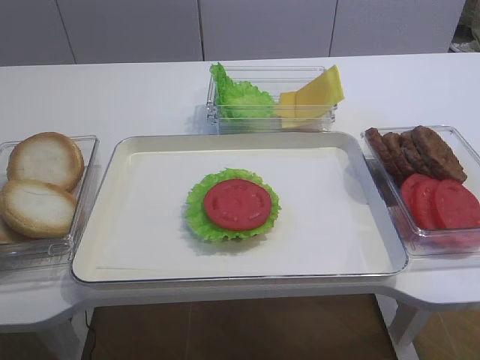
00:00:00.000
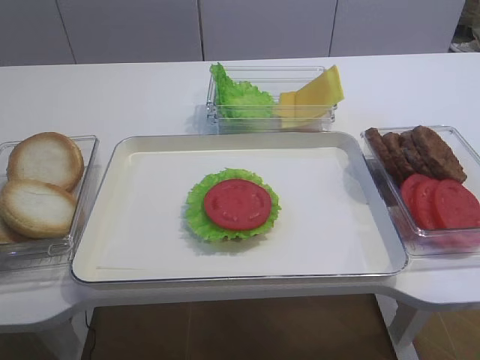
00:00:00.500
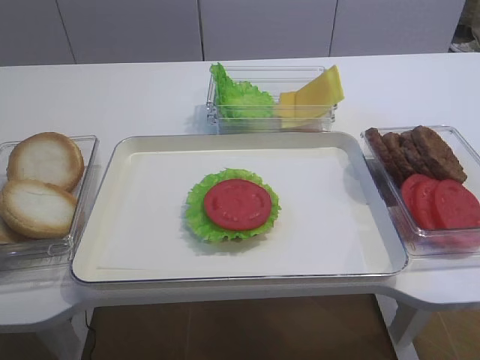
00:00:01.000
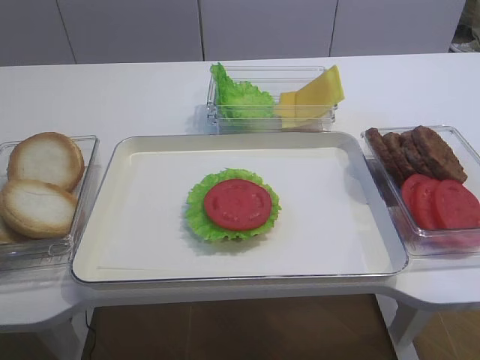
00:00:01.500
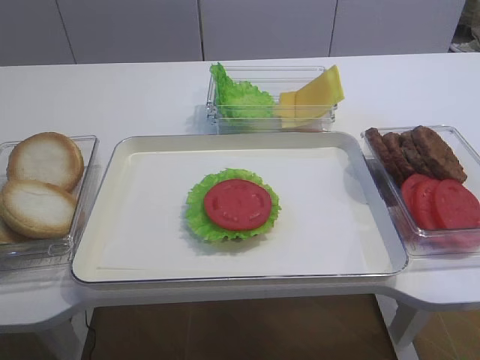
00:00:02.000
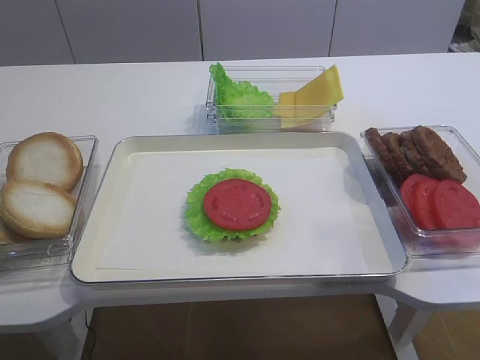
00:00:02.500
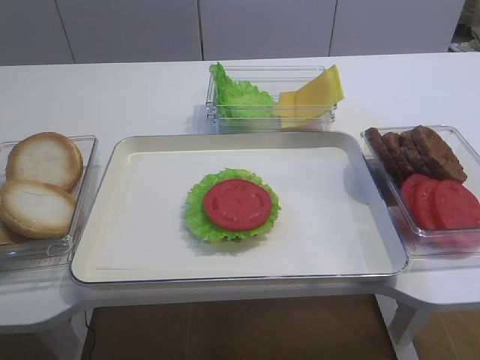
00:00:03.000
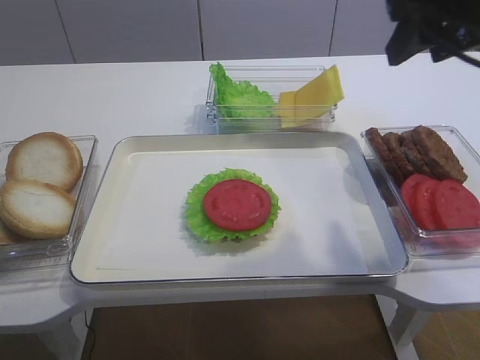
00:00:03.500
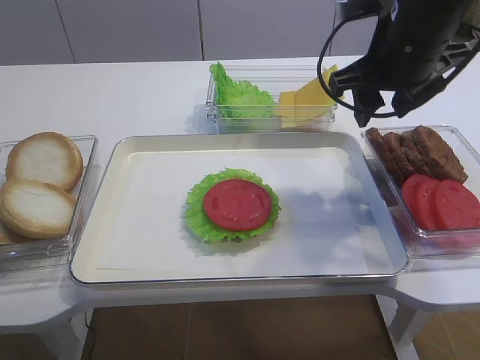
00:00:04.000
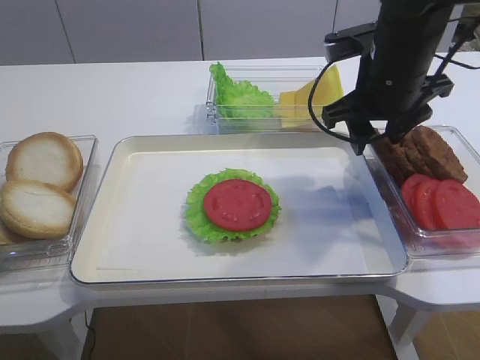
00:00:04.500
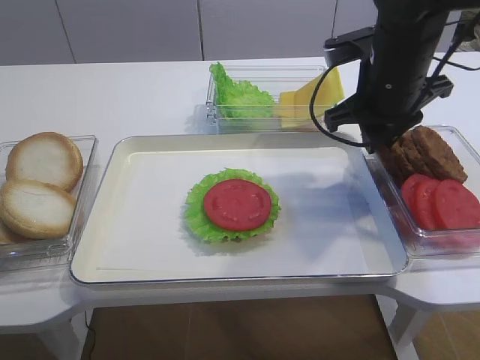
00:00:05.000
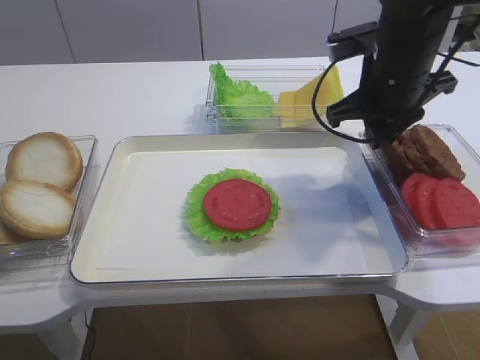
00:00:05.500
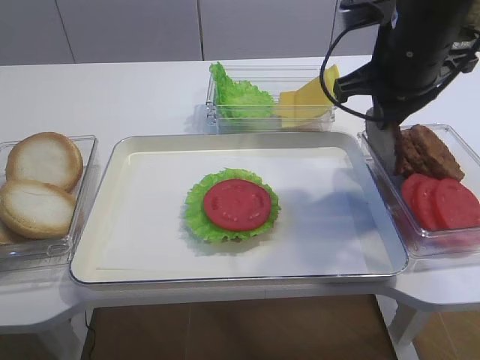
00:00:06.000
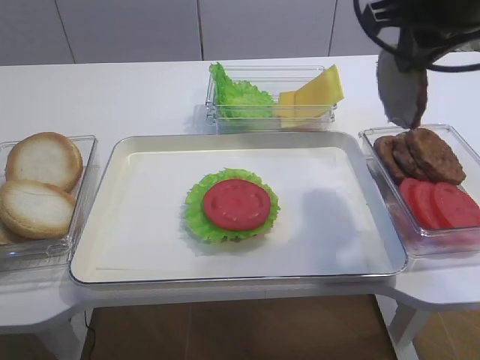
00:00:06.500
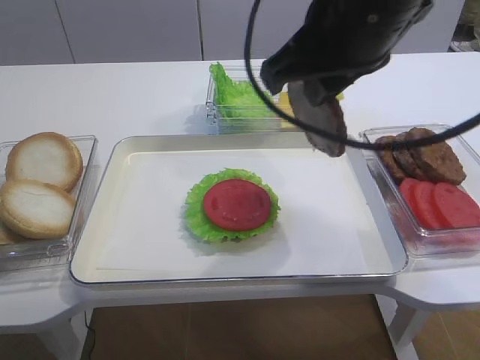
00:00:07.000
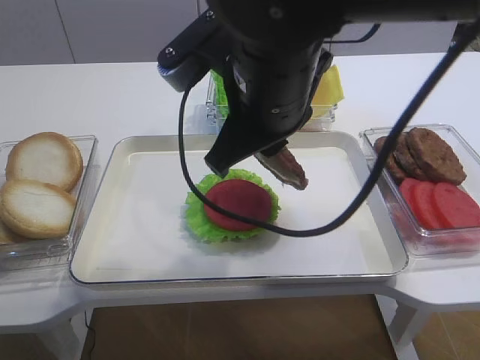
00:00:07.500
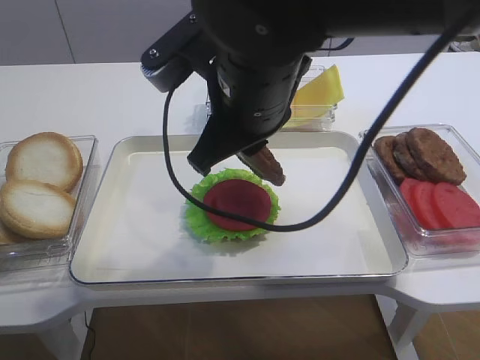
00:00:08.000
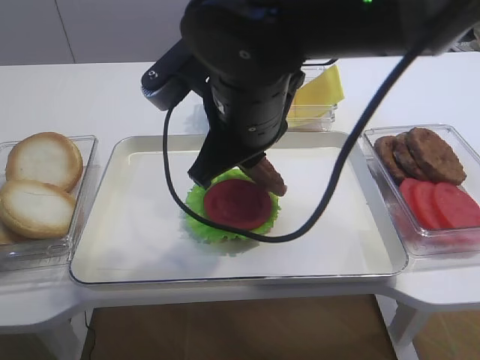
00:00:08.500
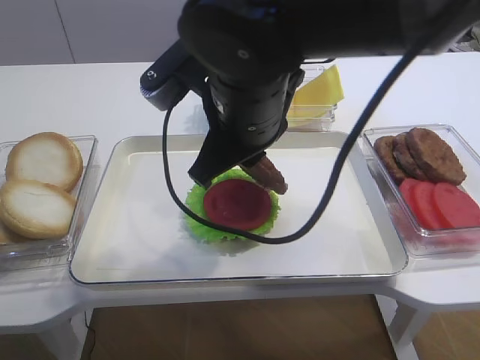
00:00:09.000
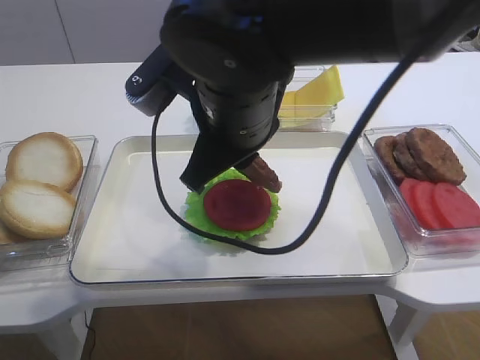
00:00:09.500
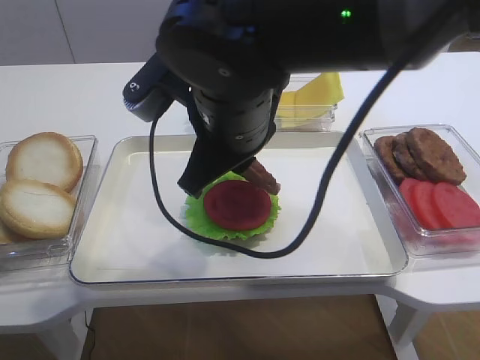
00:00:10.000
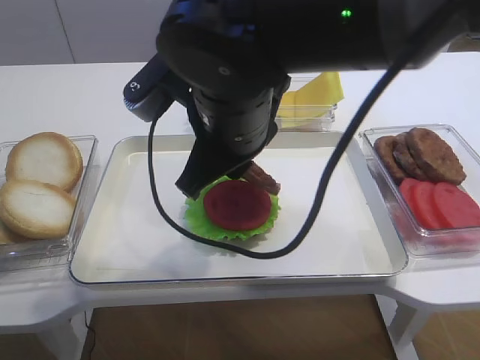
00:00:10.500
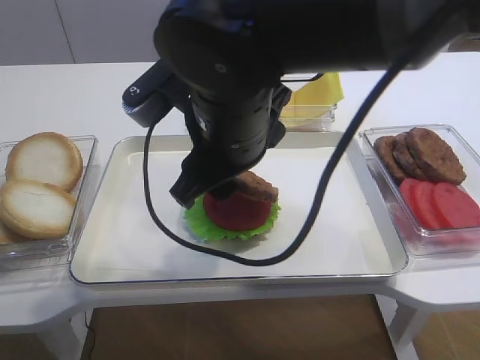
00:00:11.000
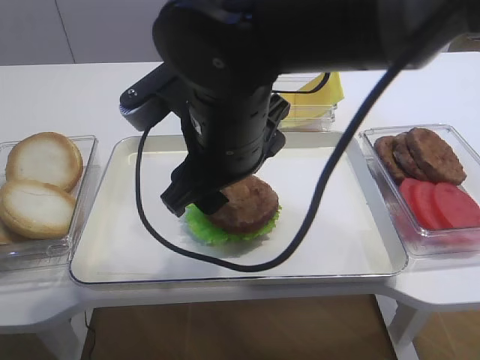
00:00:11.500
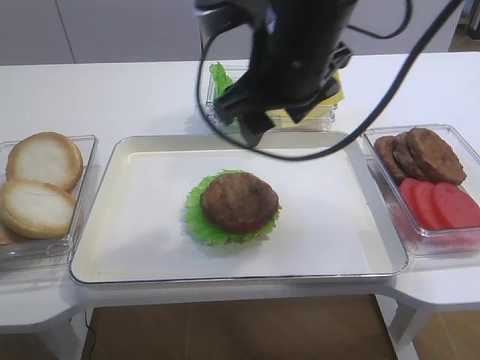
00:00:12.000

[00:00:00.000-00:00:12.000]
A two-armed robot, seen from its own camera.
Step, 00:00:00.000 to 00:00:06.000: Pick up the cutlet with the right gripper.
Step, 00:00:06.500 to 00:00:11.500: Place the cutlet on the tomato slice with the right gripper.
00:00:02.000 to 00:00:04.000: The right gripper goes roughly 35 cm forward.
00:00:04.000 to 00:00:06.000: The right gripper closes up.
00:00:06.000 to 00:00:08.000: The right gripper shifts about 15 cm to the left and backward.
00:00:08.000 to 00:00:10.000: The grippers stay close to where they were, moving slightly.
00:00:10.000 to 00:00:12.000: The right gripper changes place by about 5 cm, and opens its fingers.

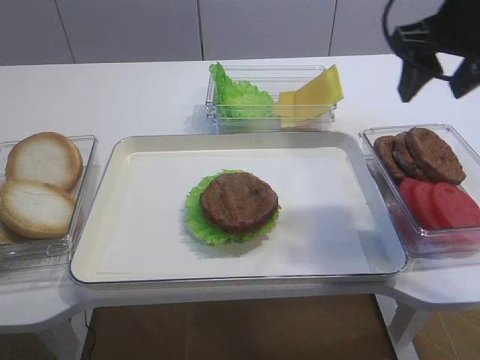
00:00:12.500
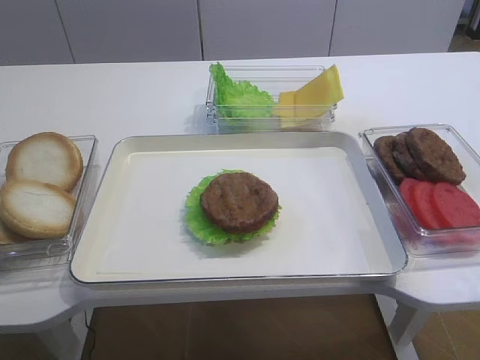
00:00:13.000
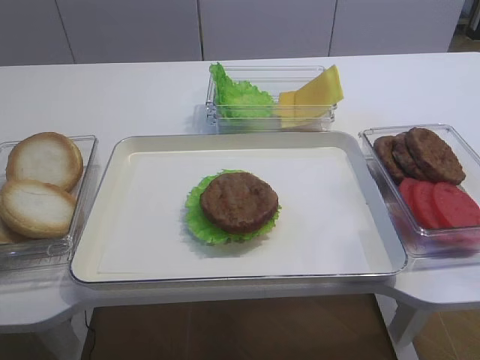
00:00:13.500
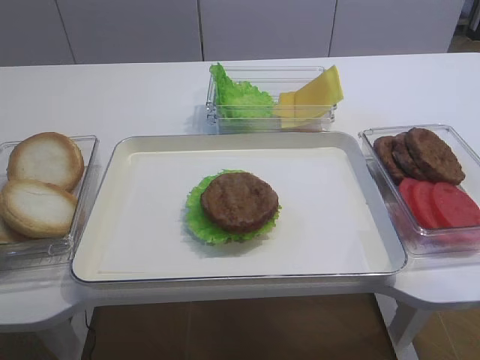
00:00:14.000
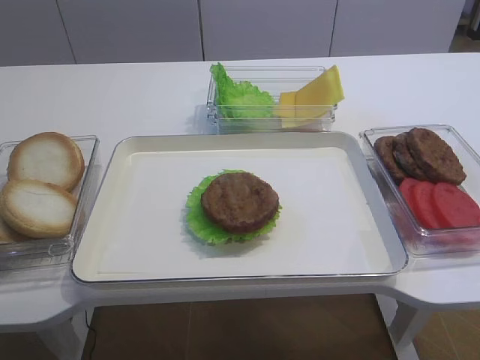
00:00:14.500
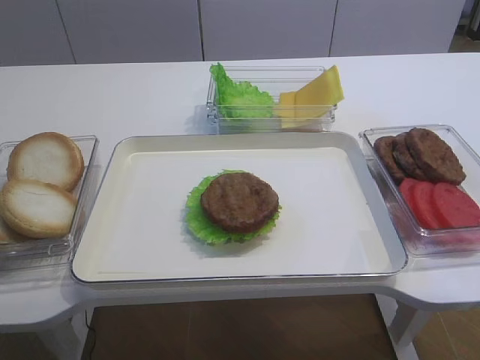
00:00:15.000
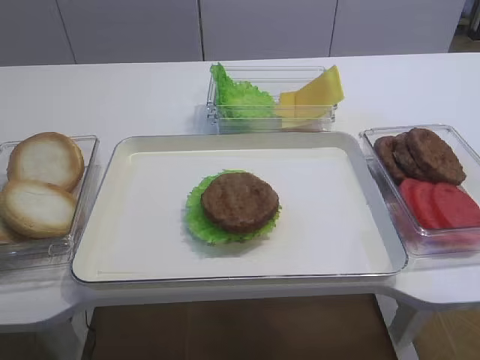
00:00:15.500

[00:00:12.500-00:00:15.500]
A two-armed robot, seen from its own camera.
00:00:12.500 to 00:00:14.000: The right gripper shifts some 35 cm backward.

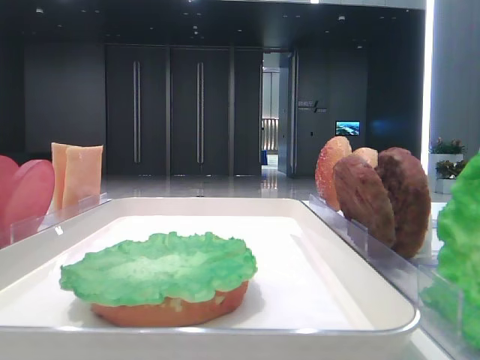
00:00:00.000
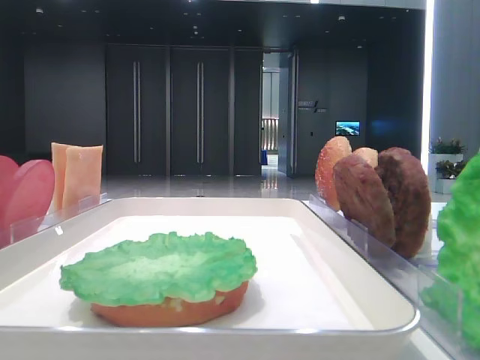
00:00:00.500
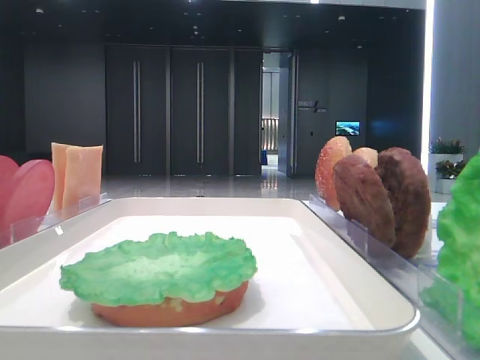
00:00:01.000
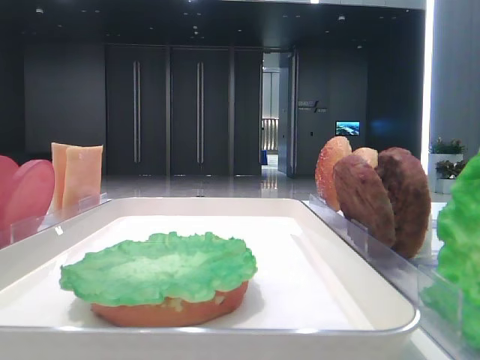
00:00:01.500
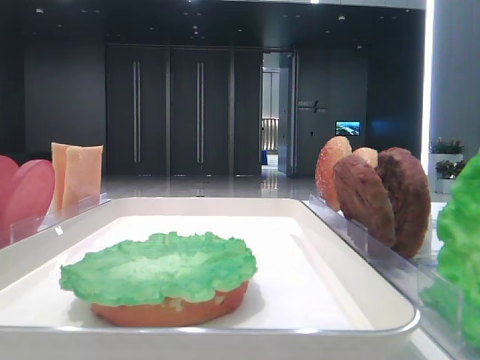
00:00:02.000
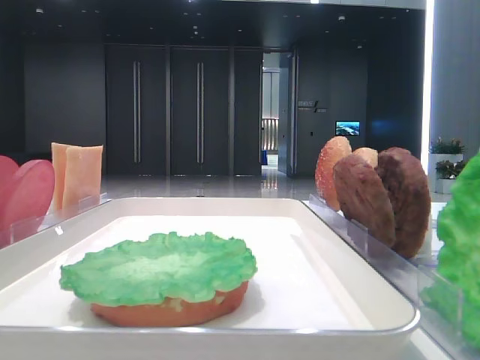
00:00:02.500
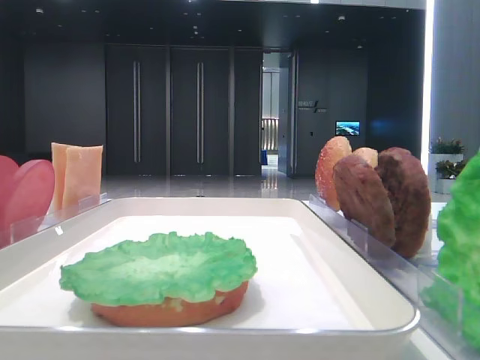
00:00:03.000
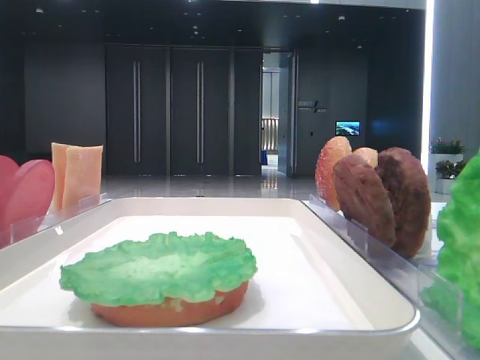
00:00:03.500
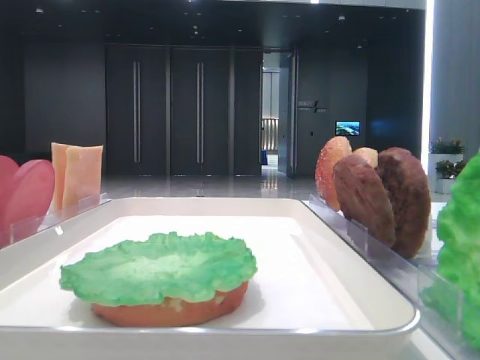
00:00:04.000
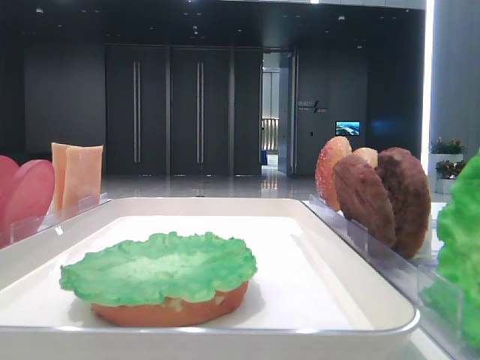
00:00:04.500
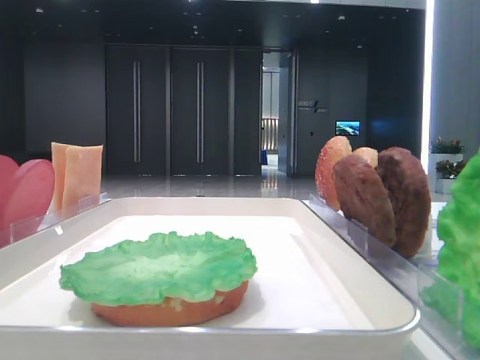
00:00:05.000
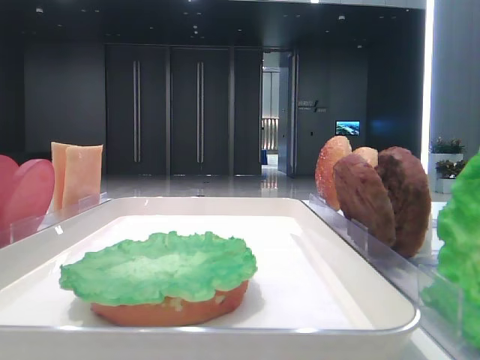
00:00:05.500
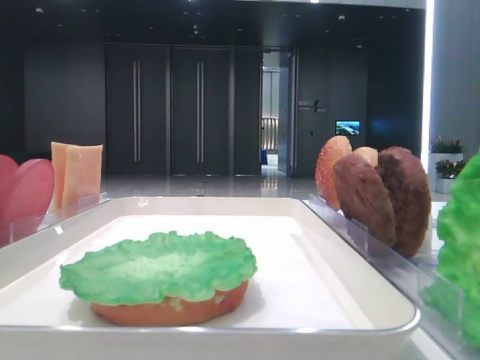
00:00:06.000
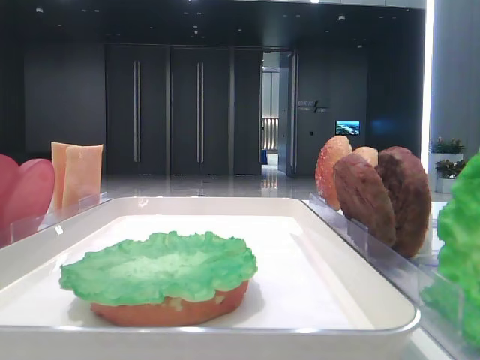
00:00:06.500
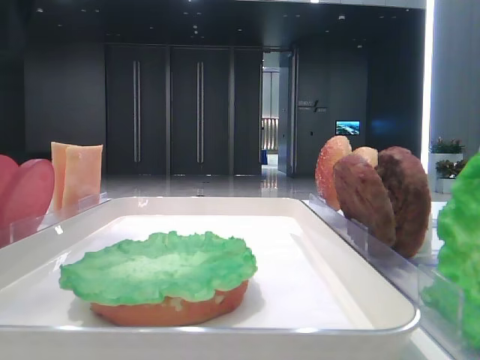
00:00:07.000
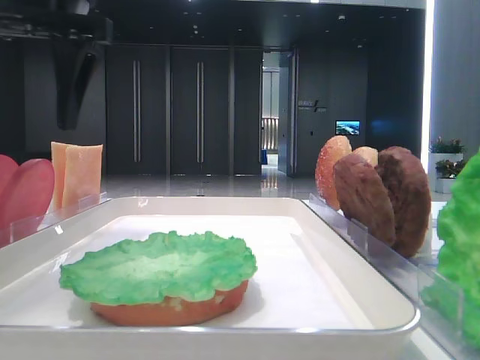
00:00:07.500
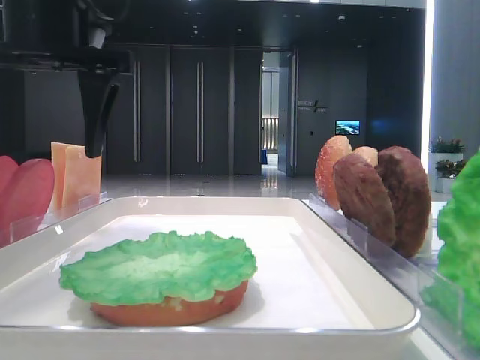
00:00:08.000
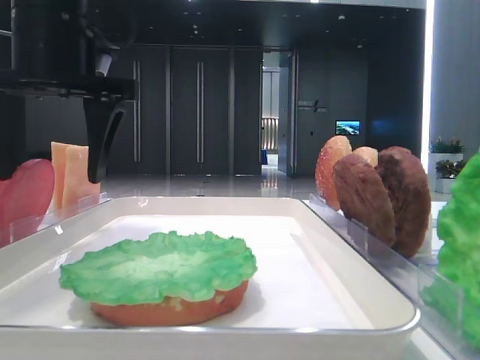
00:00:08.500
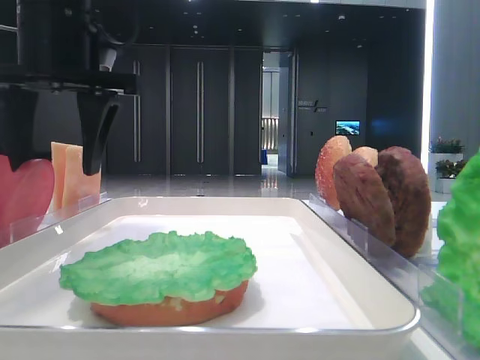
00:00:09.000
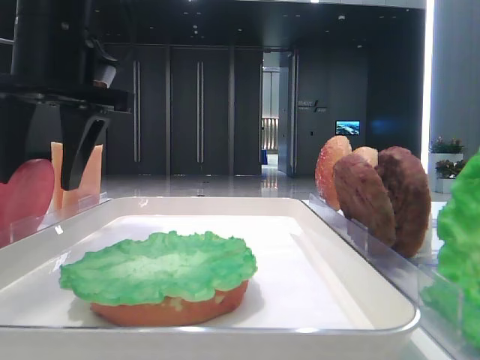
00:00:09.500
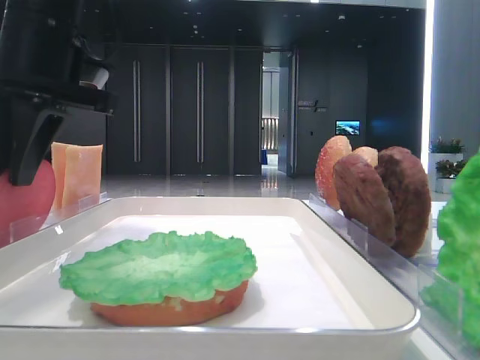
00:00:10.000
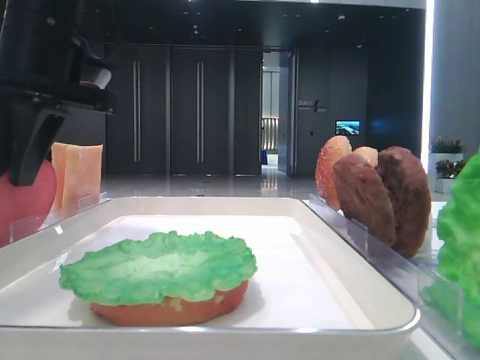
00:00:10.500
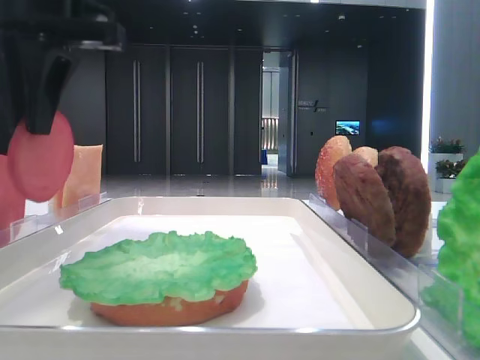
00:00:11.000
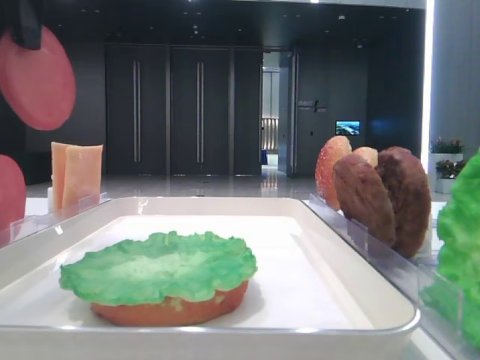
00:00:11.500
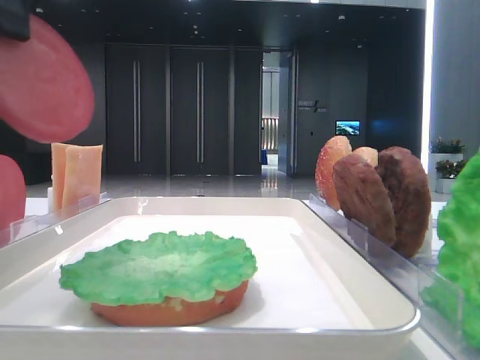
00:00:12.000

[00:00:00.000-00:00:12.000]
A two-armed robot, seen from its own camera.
Step, 00:00:00.000 to 00:00:10.500: Pick up the tomato slice with the left hand.
00:00:06.000 to 00:00:08.000: The left gripper heads to the right and downward, covering roughly 20 cm.
00:00:08.000 to 00:00:10.000: The left gripper closes its fingers.
00:00:10.000 to 00:00:12.000: The left gripper shifts roughly 15 cm backward and upward.
